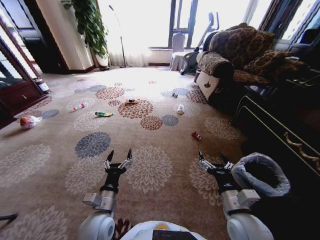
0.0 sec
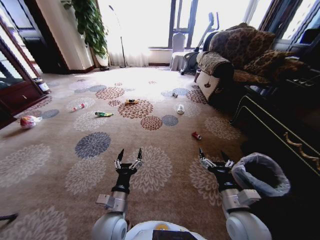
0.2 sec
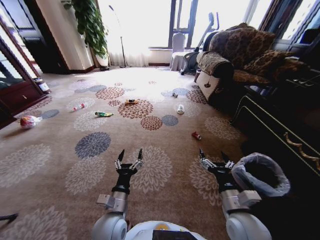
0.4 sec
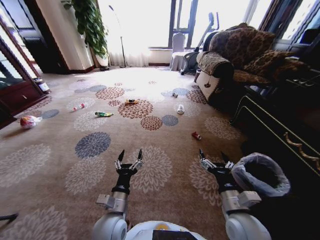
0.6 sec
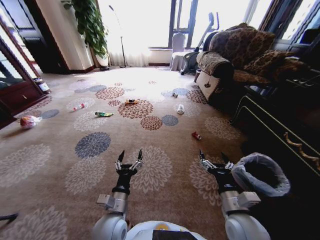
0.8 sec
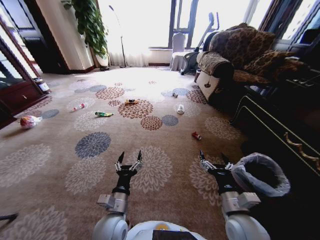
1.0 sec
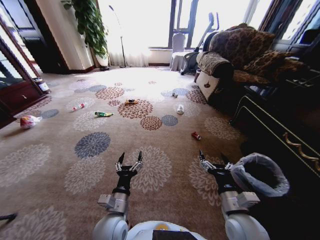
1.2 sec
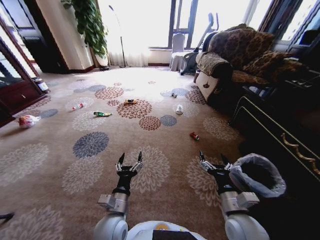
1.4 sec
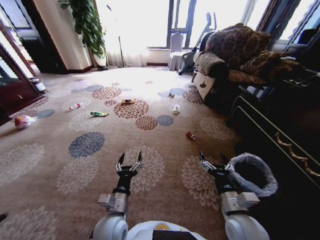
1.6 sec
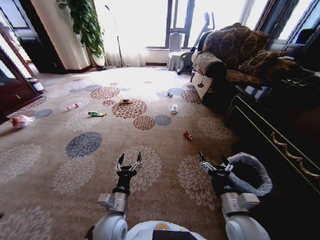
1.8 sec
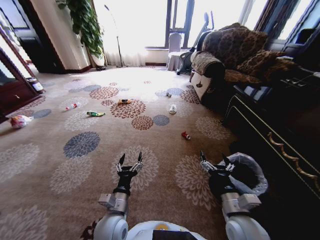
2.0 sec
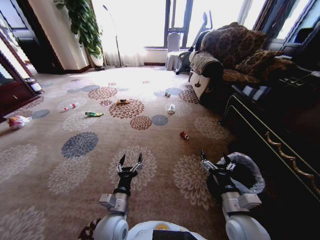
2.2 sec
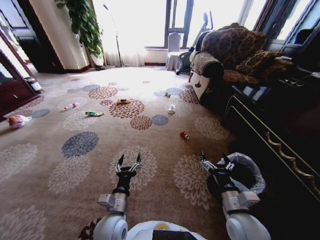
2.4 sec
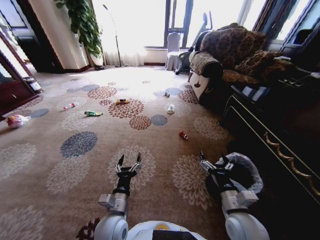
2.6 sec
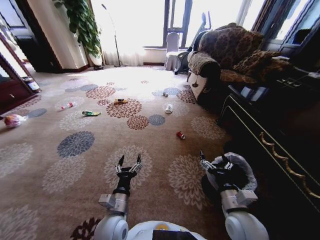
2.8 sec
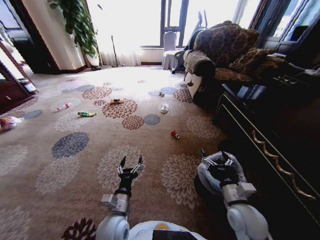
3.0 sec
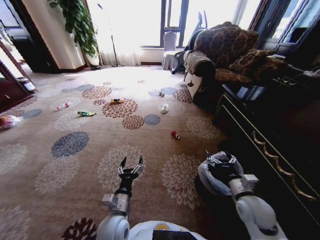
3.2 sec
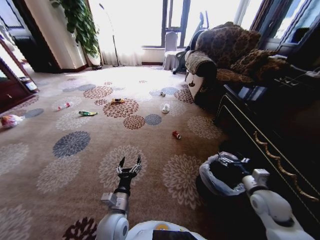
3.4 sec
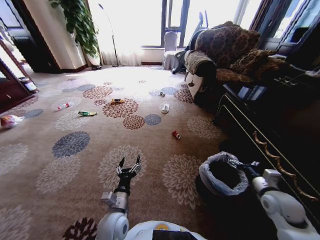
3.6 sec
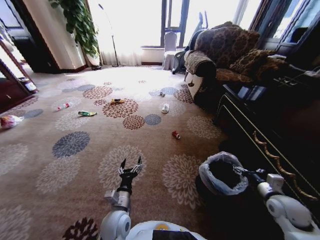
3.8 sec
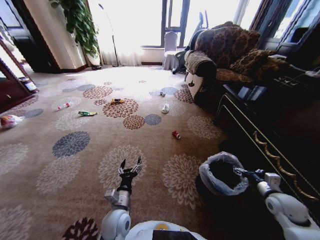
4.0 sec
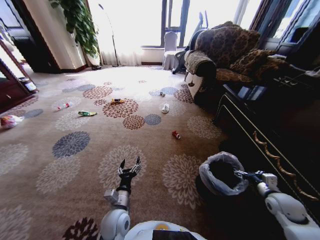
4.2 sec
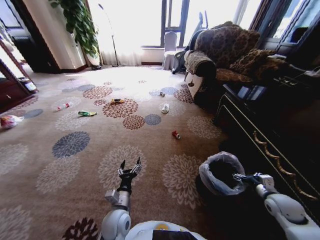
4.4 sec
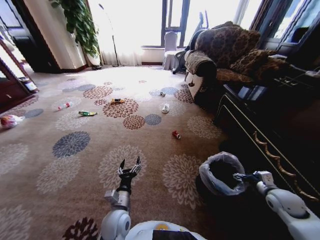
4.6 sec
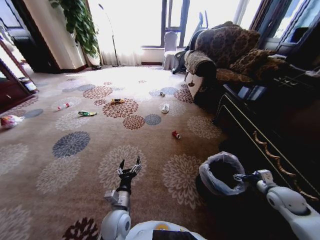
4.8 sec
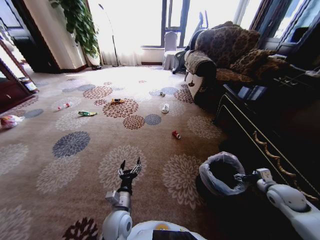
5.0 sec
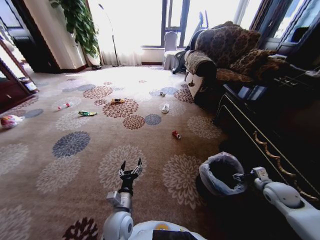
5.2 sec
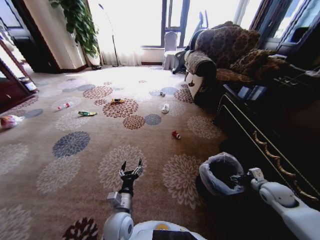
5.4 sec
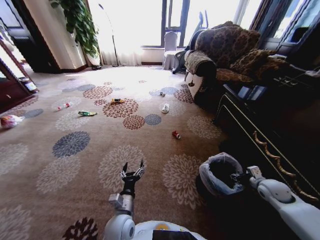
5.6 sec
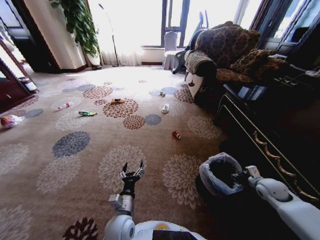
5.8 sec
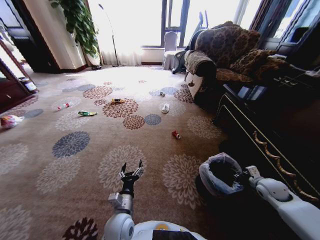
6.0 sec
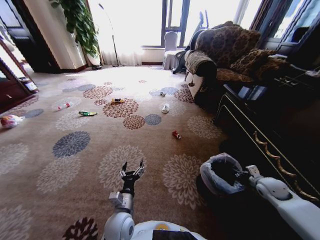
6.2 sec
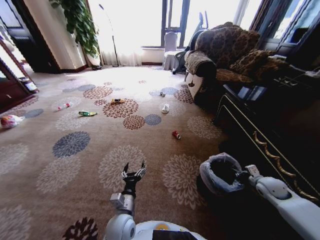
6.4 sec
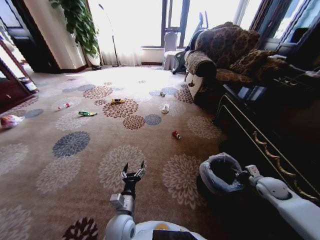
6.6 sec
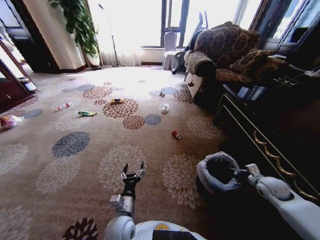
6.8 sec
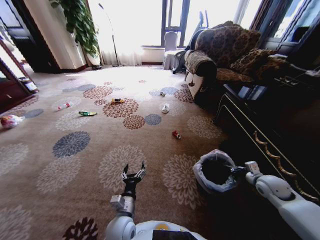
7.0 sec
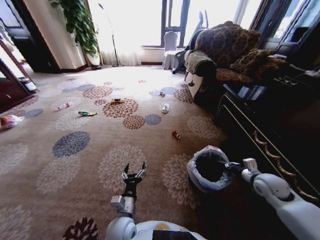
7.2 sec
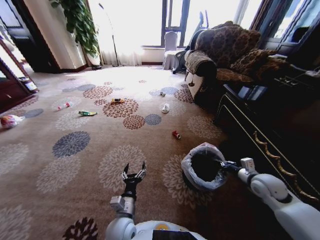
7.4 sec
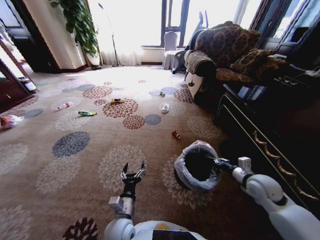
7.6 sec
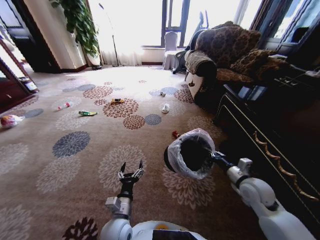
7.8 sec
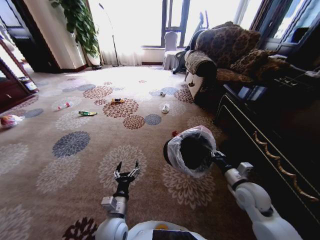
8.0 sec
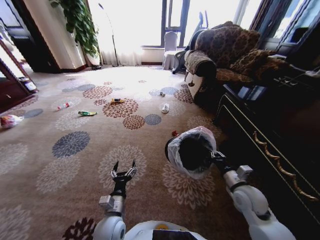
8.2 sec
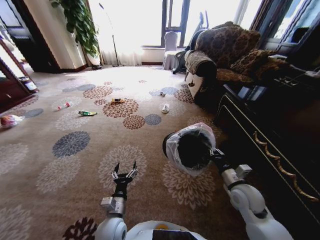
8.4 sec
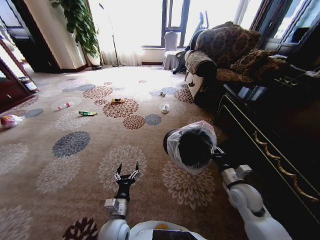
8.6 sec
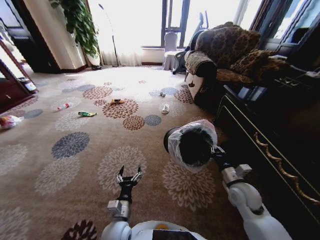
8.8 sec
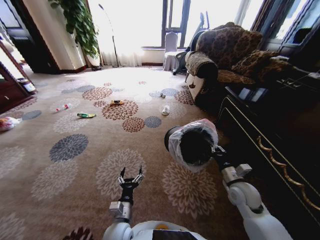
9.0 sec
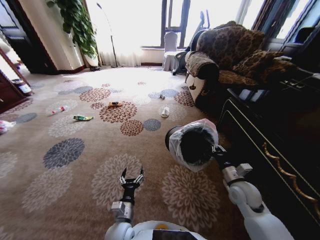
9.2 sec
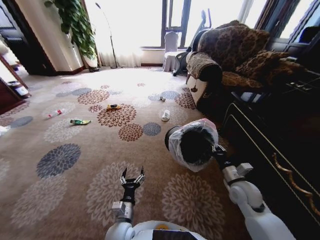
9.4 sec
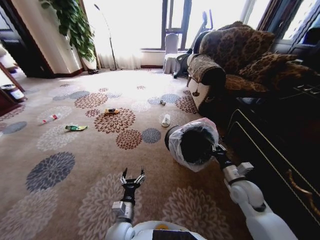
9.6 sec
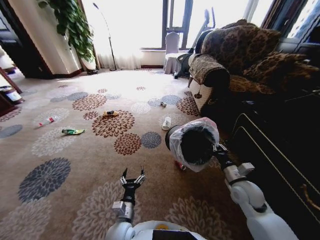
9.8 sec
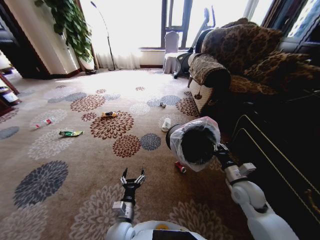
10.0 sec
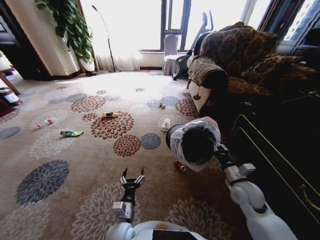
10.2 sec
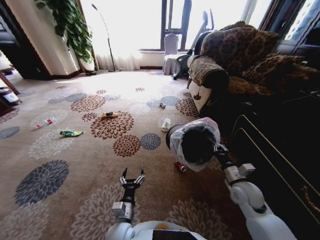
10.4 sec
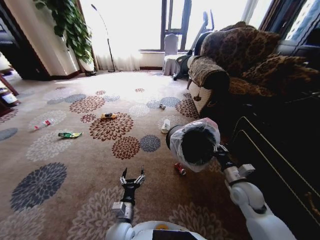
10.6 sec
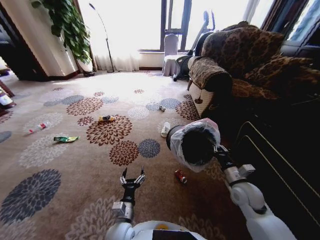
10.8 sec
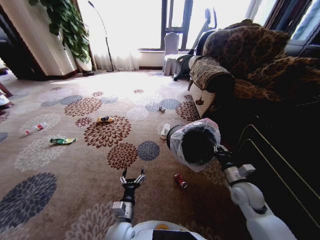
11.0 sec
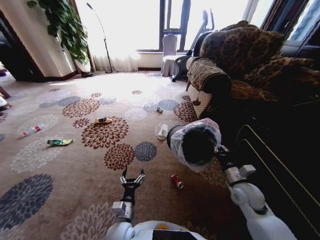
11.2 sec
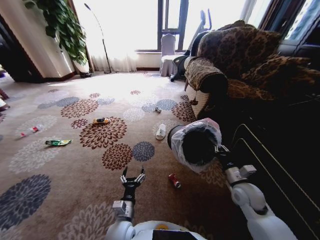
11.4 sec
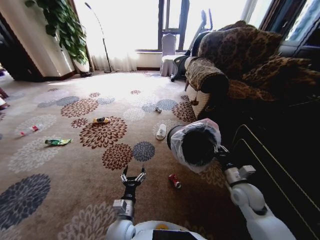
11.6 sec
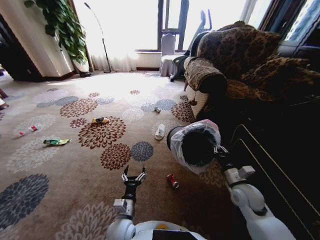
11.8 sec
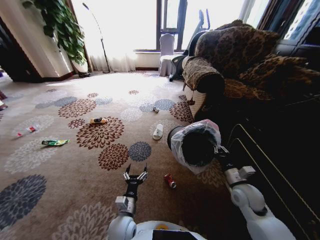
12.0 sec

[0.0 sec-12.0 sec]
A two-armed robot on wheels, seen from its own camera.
Task of the whole recording: Pick up the trash from the ground and place it into the trash bin.
3.0 sec to 4.4 sec: The right gripper moves to the right, some 20 cm.
4.4 sec to 6.0 sec: The right gripper goes roughly 5 cm forward, and closes up.
6.0 sec to 7.6 sec: The right gripper travels to the left and upward by roughly 15 cm, and closes up.
7.6 sec to 9.0 sec: The right gripper moves to the left, approximately 5 cm.

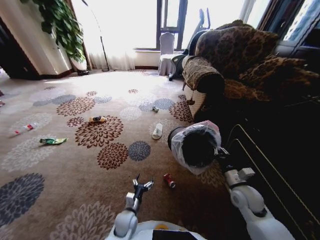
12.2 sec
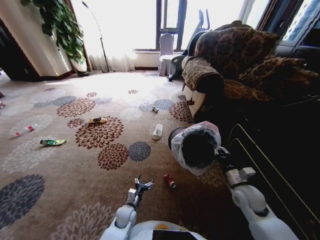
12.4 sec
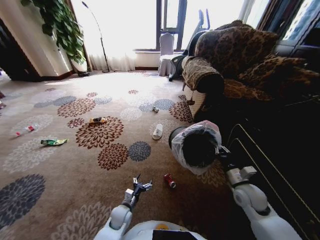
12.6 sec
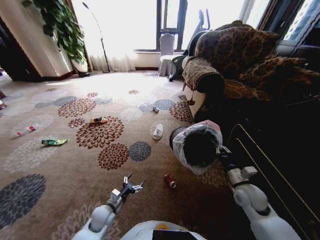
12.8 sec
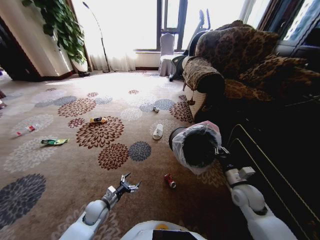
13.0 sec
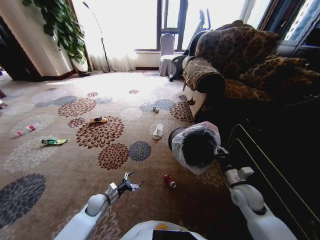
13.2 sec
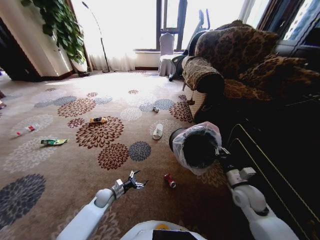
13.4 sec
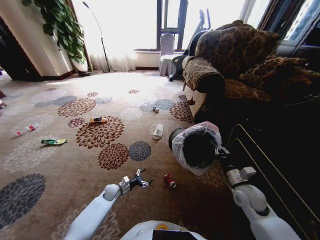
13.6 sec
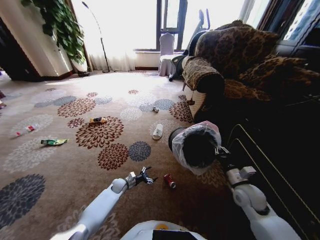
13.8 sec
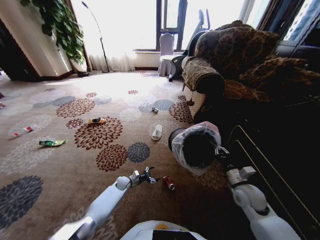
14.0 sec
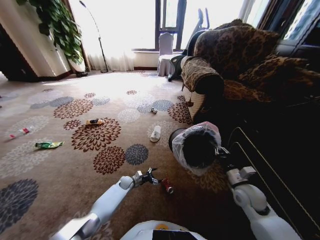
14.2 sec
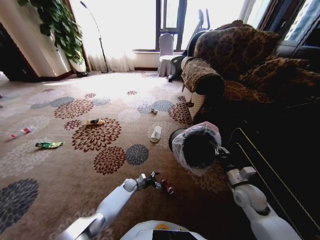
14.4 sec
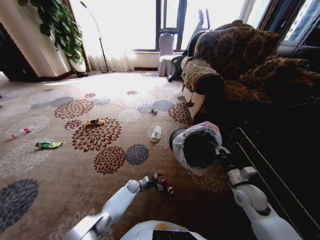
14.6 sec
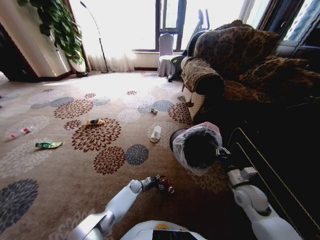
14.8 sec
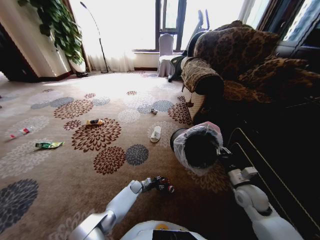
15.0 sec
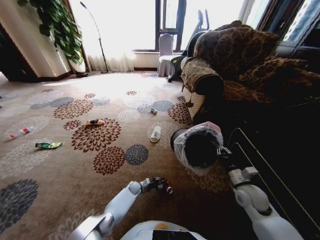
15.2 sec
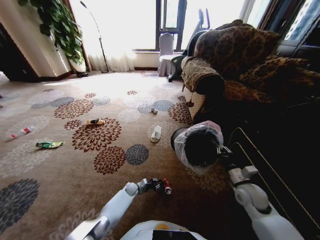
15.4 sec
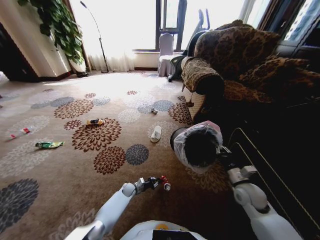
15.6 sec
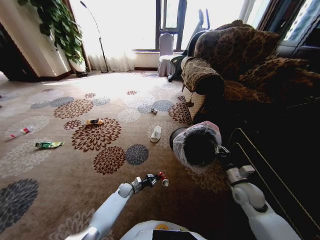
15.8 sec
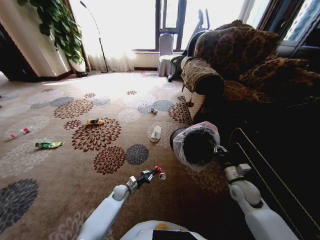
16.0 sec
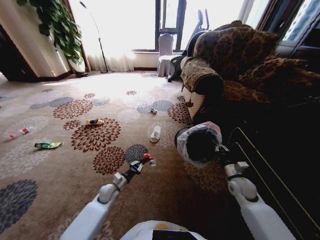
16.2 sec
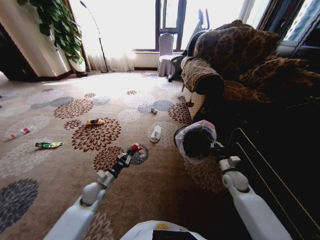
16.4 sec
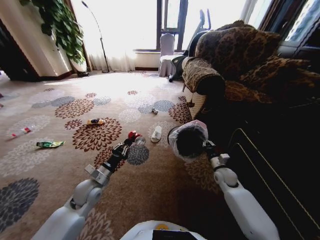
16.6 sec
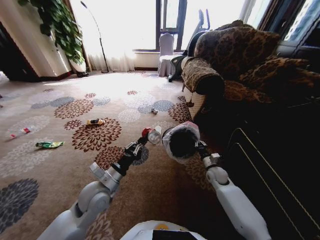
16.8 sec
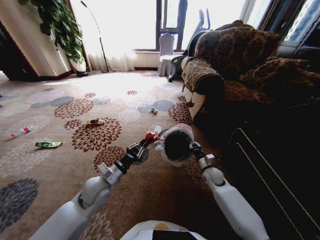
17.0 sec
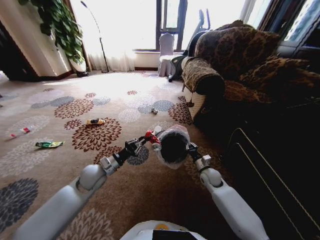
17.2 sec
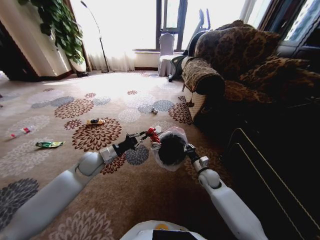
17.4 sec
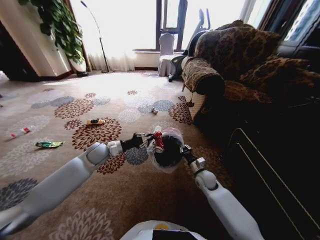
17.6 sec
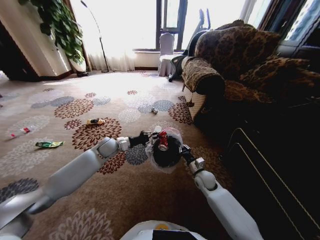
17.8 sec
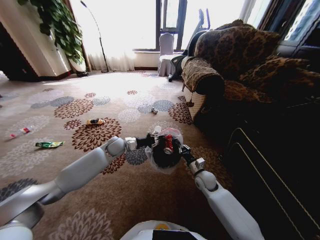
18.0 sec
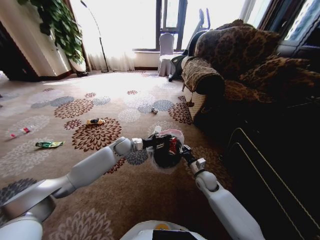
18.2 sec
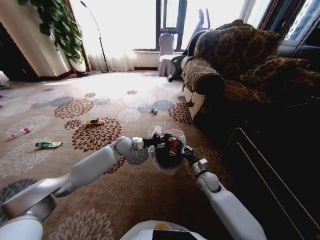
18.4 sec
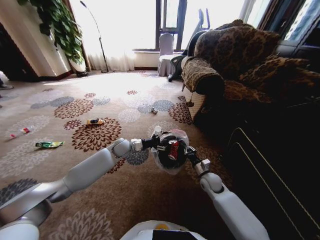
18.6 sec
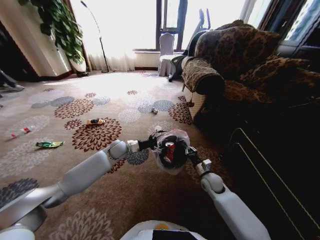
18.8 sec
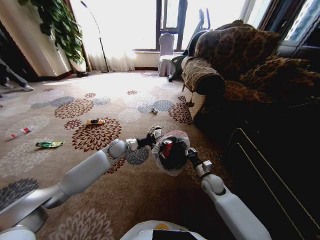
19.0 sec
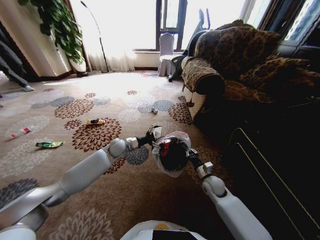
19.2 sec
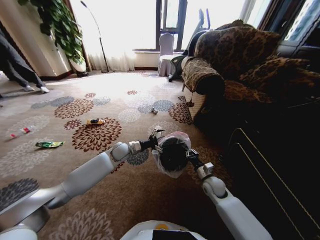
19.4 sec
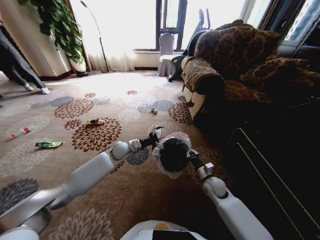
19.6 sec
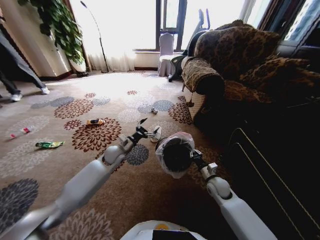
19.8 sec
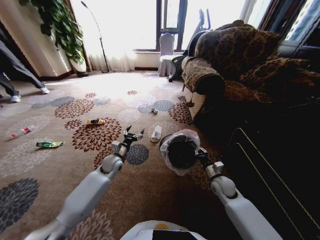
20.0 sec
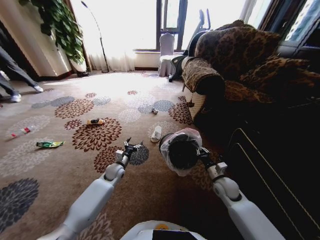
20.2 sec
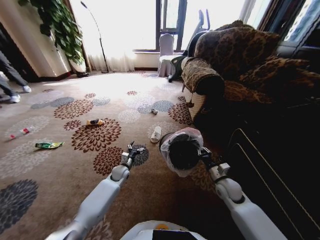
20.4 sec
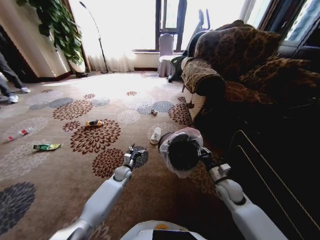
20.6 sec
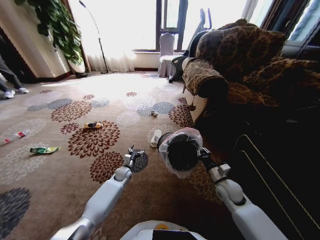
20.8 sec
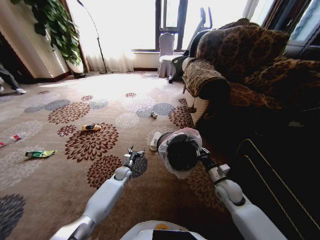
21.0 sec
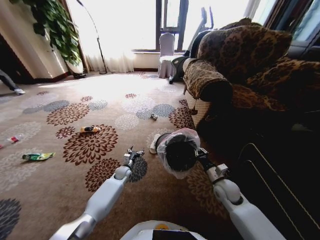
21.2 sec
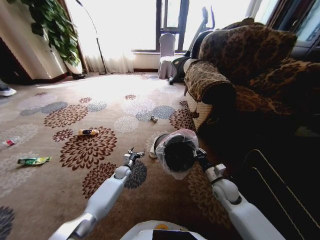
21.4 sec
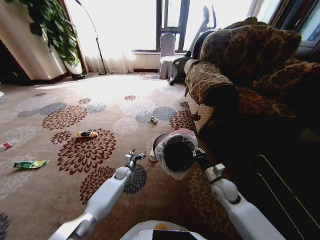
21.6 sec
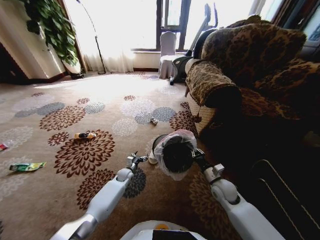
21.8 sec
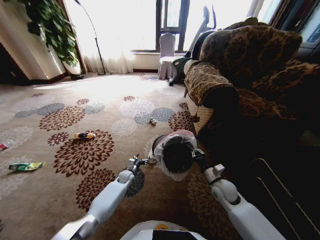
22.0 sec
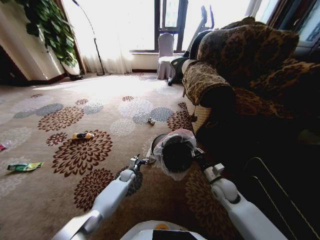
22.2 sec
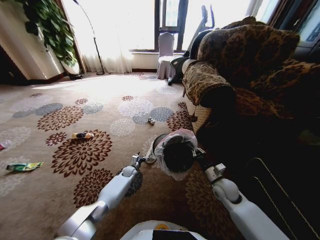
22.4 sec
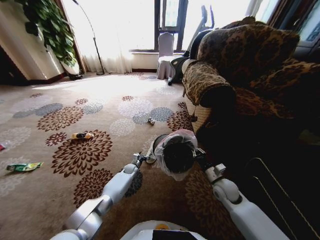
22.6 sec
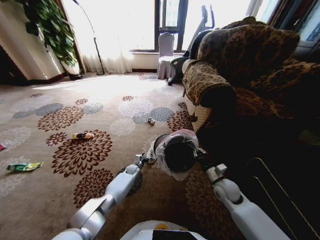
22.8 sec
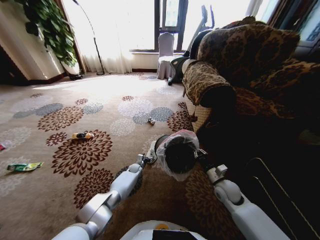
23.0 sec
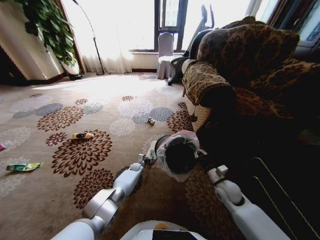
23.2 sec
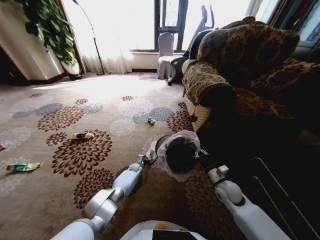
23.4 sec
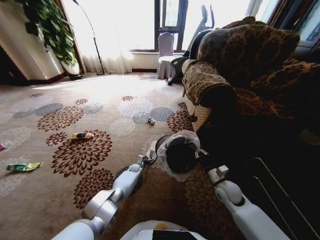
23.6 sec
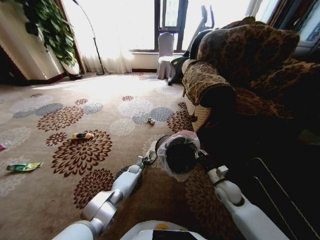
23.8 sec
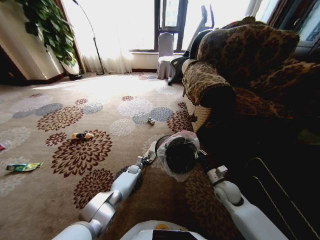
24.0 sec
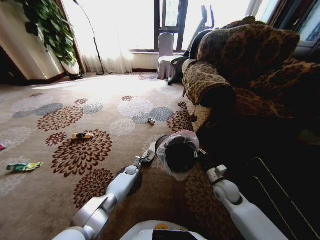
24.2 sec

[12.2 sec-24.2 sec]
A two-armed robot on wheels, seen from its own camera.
Task of the whole recording: Pick up the trash from the ground and place it into the trash bin.
12.2 sec to 13.8 sec: The left gripper heads forward and to the left, covering some 20 cm.
13.8 sec to 15.2 sec: The left gripper goes some 10 cm to the right and downward, and closes.
15.2 sec to 16.6 sec: The left gripper travels upward by approximately 30 cm. Meanwhile the right gripper goes approximately 15 cm forward and downward.
16.6 sec to 18.2 sec: The left gripper shifts about 20 cm forward; the right gripper shifts approximately 10 cm to the left.
18.2 sec to 19.8 sec: The right gripper changes place by approximately 5 cm; the left gripper moves backward, roughly 5 cm, and opens up.
19.8 sec to 21.2 sec: The left gripper travels downward by about 20 cm.
21.2 sec to 22.6 sec: The left gripper shifts about 5 cm downward.
22.6 sec to 24.2 sec: The left gripper closes its fingers.
